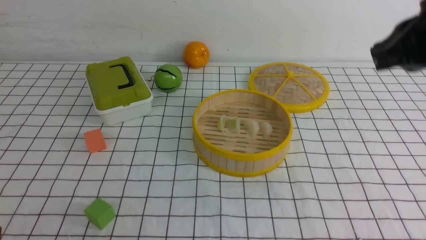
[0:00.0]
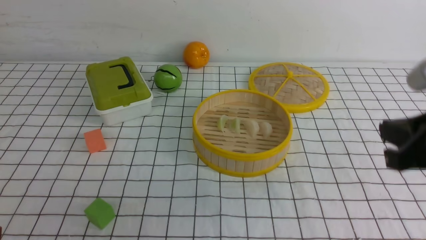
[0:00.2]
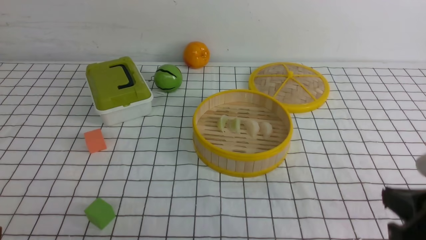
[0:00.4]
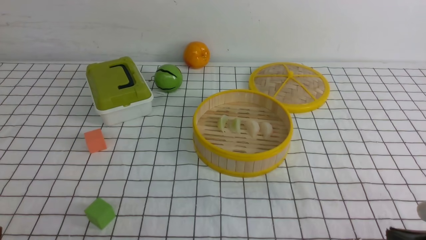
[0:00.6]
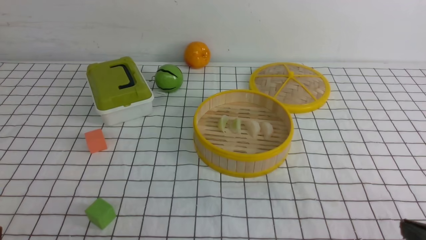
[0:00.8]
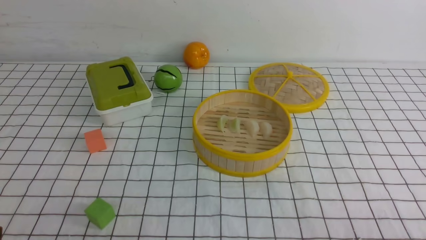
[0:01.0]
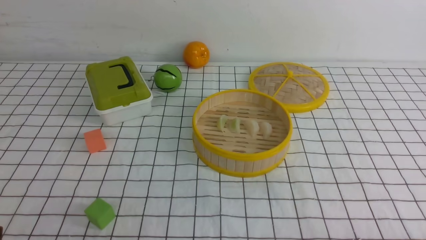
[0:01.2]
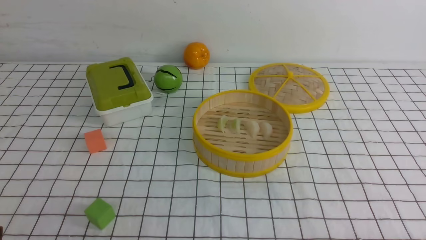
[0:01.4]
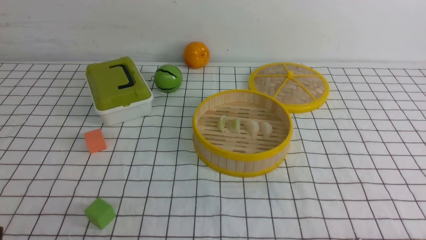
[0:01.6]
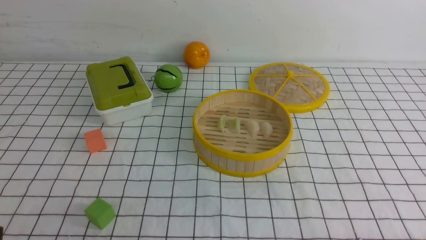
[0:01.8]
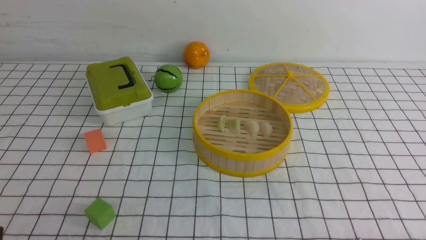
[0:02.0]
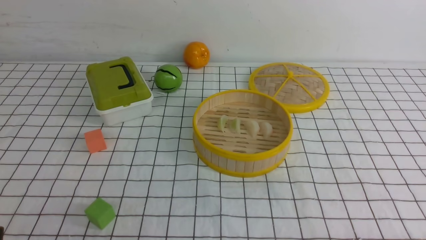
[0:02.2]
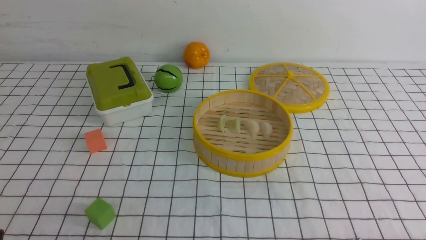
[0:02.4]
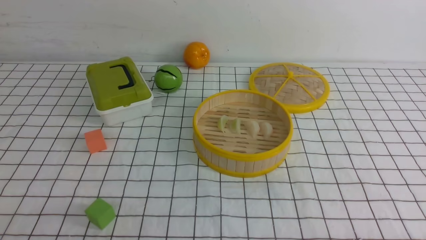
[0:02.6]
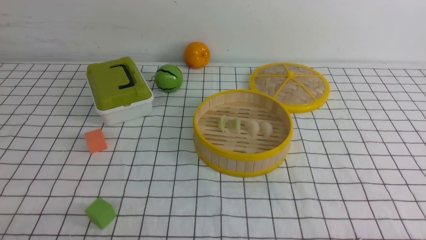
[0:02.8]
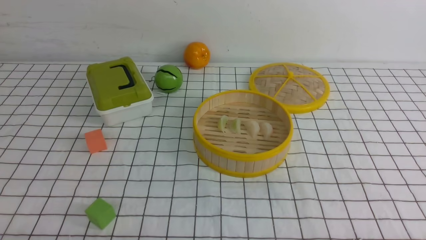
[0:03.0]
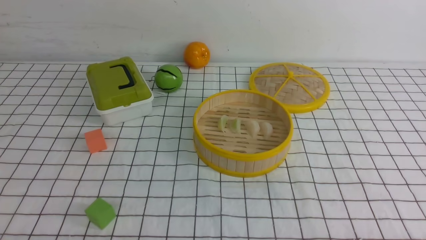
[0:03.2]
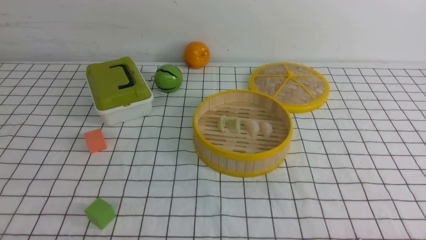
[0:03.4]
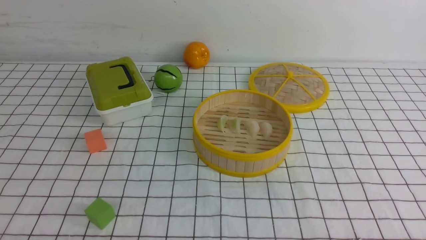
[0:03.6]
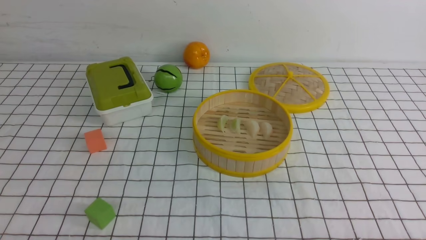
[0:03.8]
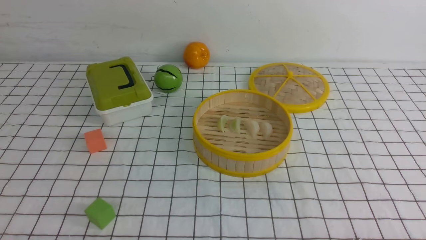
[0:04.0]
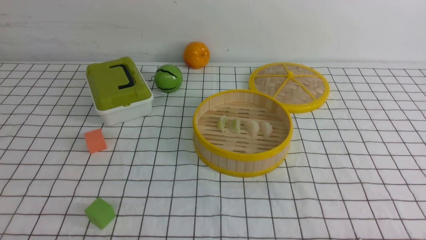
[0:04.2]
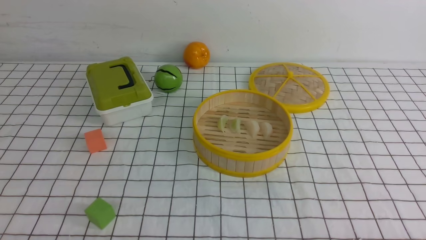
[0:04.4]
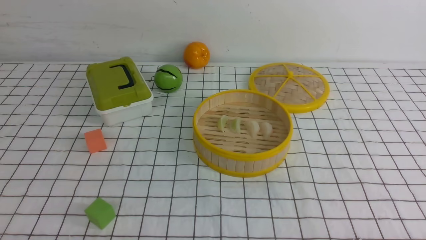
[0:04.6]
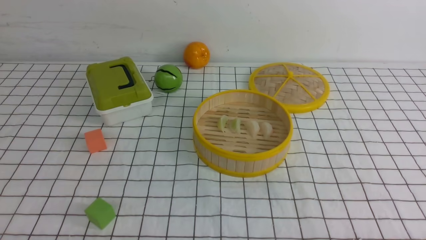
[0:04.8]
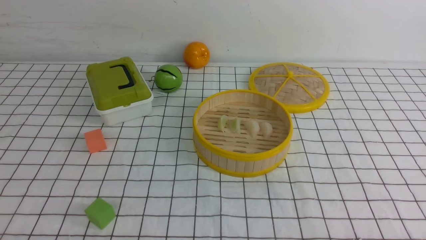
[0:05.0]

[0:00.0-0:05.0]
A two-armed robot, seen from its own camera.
Task of the whole recording: put the dumplings into the steamer on the table with the white tablecloth.
0:00.0 to 0:01.6: The right gripper moves downward and backward, about 35 cm.
0:03.4 to 0:05.0: Both grippers stay put.
